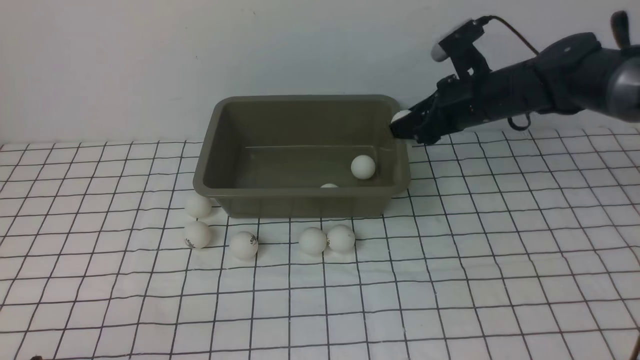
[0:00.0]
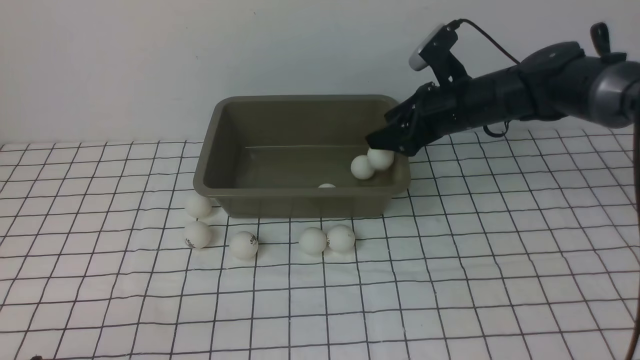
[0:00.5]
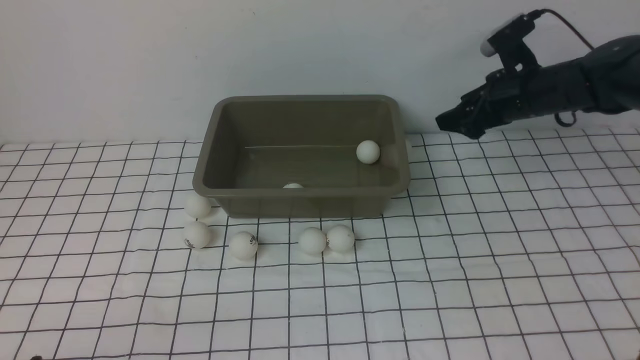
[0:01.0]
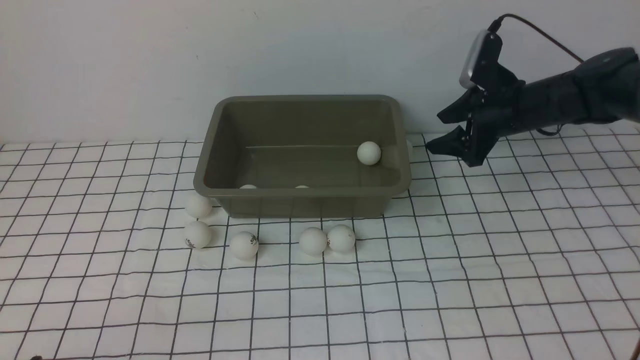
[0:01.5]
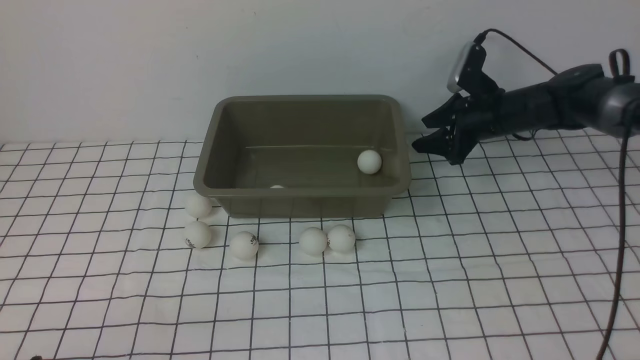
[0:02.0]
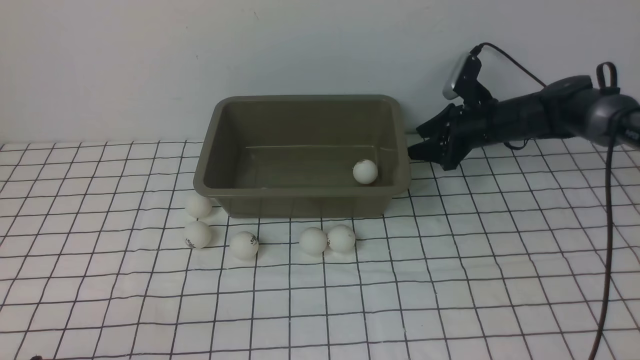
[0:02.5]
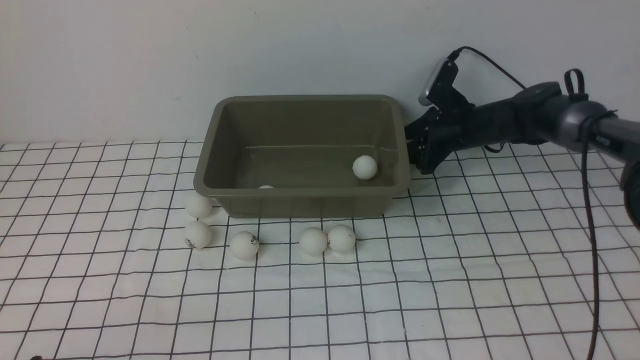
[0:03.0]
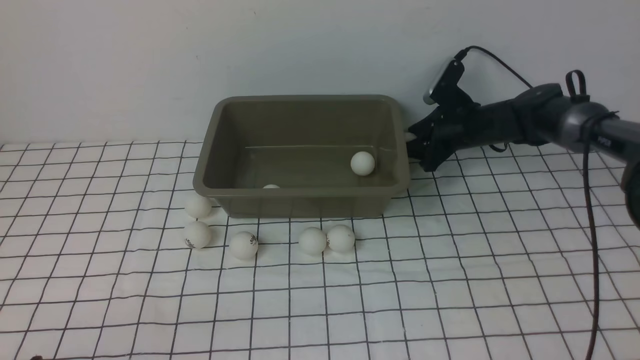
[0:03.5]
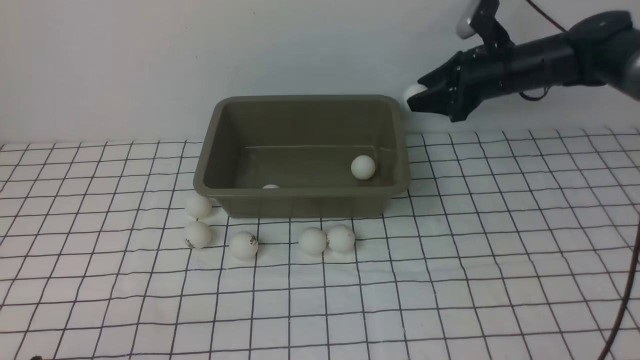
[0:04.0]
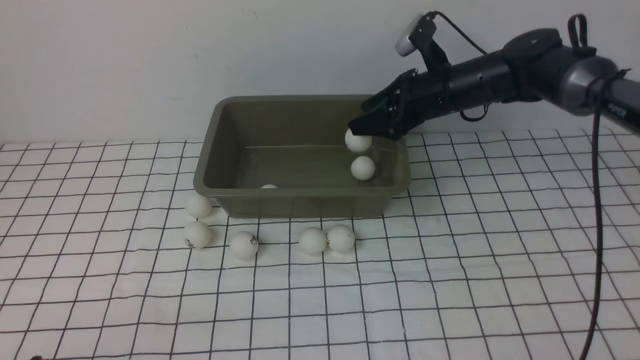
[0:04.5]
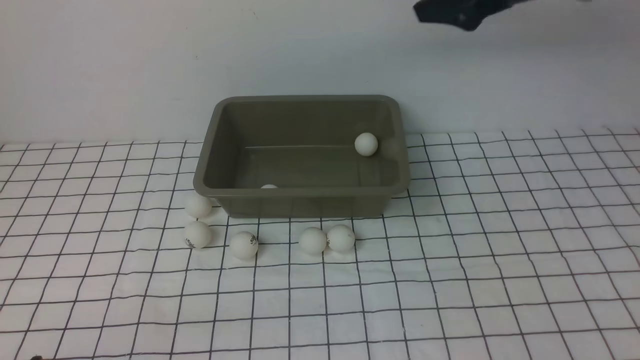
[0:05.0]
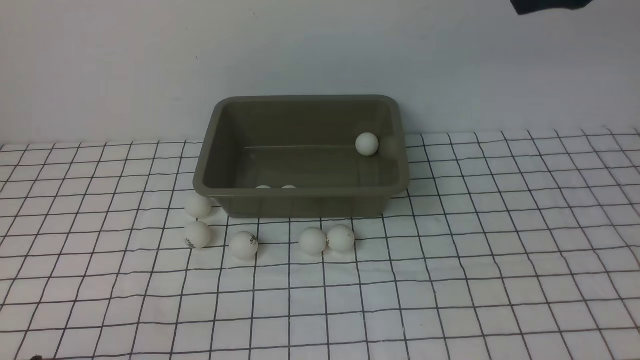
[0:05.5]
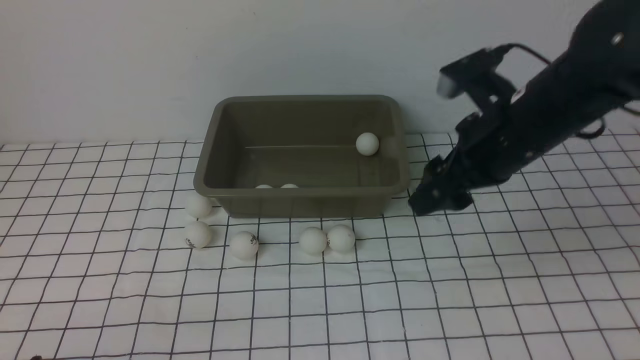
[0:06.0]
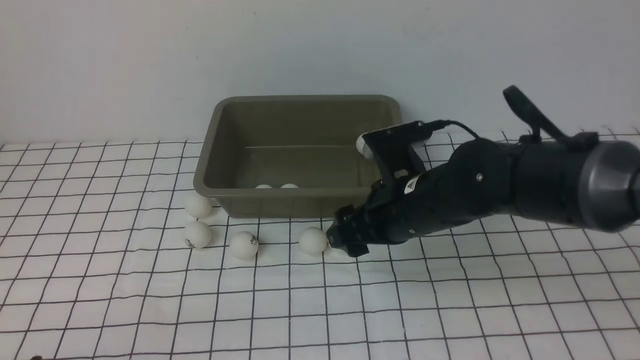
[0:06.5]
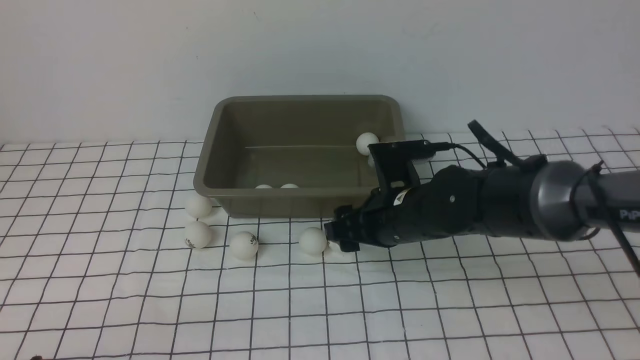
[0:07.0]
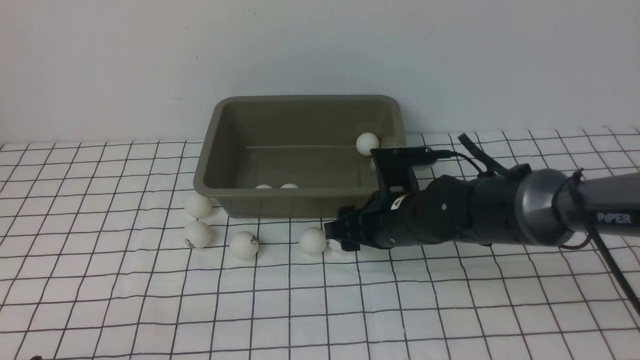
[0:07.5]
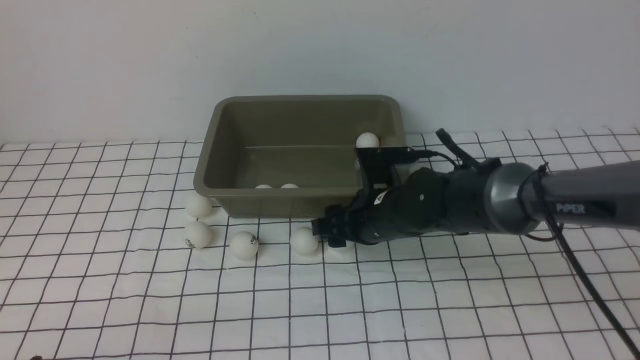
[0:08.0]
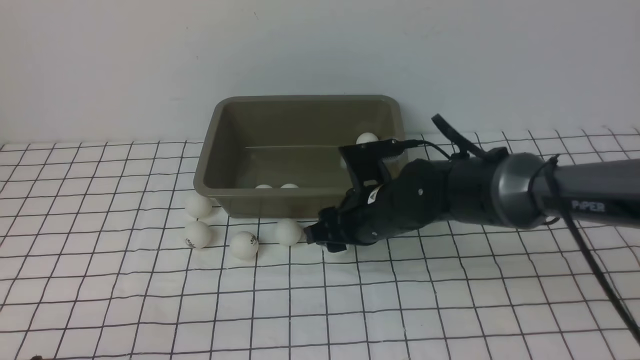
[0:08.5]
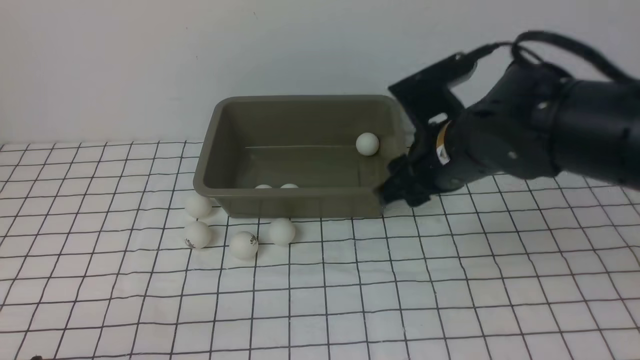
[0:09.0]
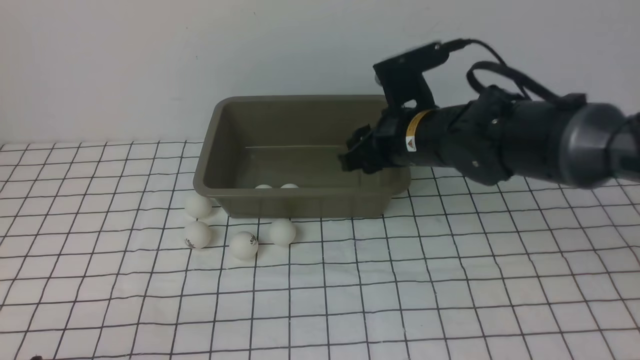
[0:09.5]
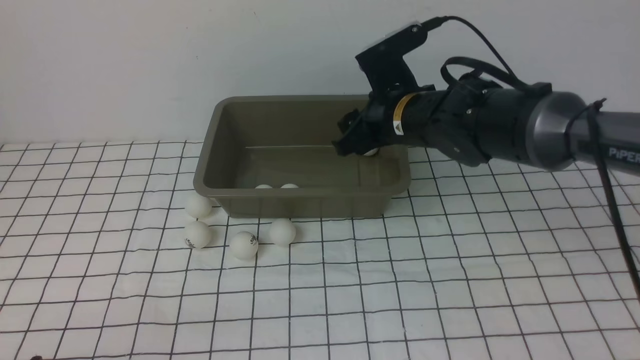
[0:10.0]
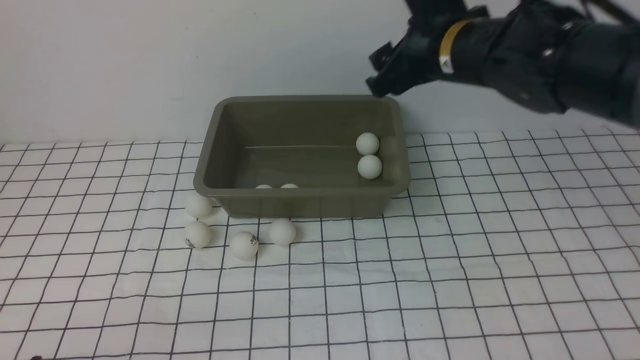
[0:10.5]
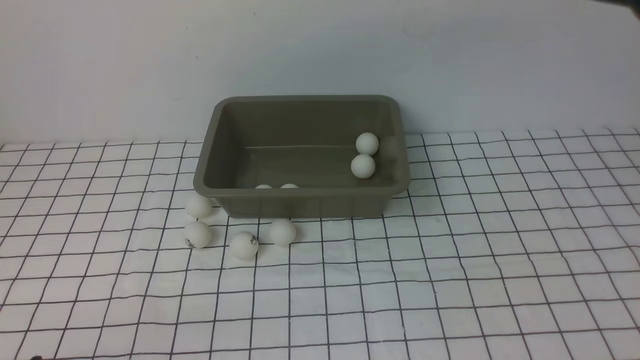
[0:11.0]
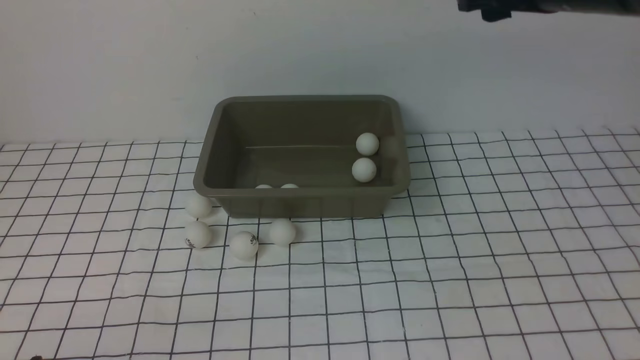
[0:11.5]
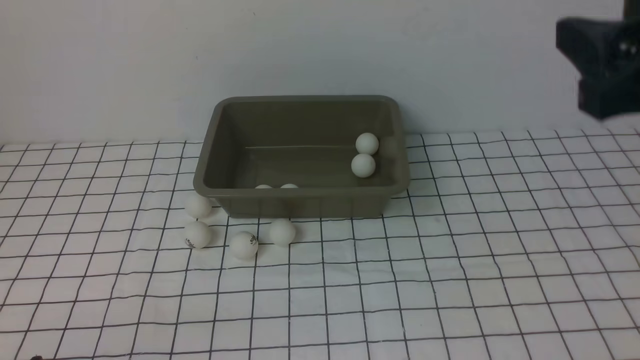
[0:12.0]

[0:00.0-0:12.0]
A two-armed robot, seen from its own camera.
Step, 0:00.0 to 0:00.5: use the right arm to put the table tennis ball into the box.
Step, 0:01.0 to 0:03.5: use the right arm to clamp the table tennis ball closest to it.
Step, 0:04.0 to 0:04.5: use the right arm to put the table tennis ball into the box.
Step, 0:05.0 to 0:08.5: use the right arm to clamp the table tennis ball closest to it.
Step, 0:09.0 to 0:10.0: use the right arm to put the table tennis ball into the box.
0:00.0 to 0:02.0: The right gripper moves downward, forward and to the right, some 10 cm, and opens its fingers.
0:02.0 to 0:04.0: The right gripper heads upward, covering about 5 cm, and closes its fingers.
0:04.0 to 0:06.0: The right gripper travels backward by roughly 15 cm, travels upward and back again, roughly 20 cm each way, and opens its fingers.
0:06.0 to 0:08.0: The right gripper heads downward and to the left, covering approximately 20 cm, and closes.
0:08.0 to 0:10.0: The right gripper moves upward and forward, some 10 cm, and closes, then reopens.
0:10.0 to 0:12.0: The right gripper goes roughly 30 cm backward, to the right and upward.

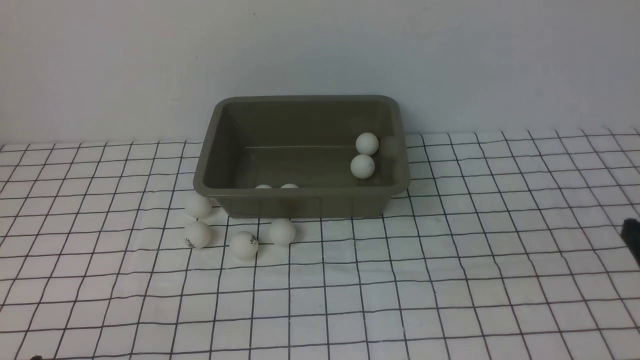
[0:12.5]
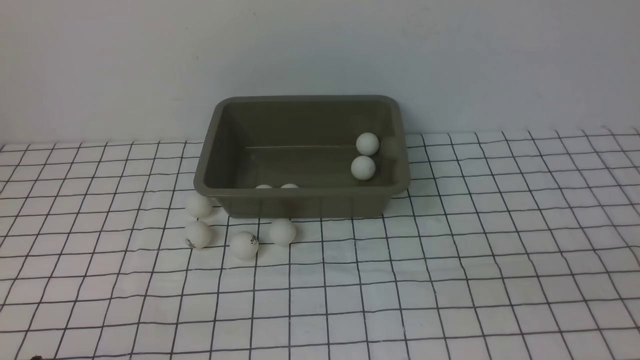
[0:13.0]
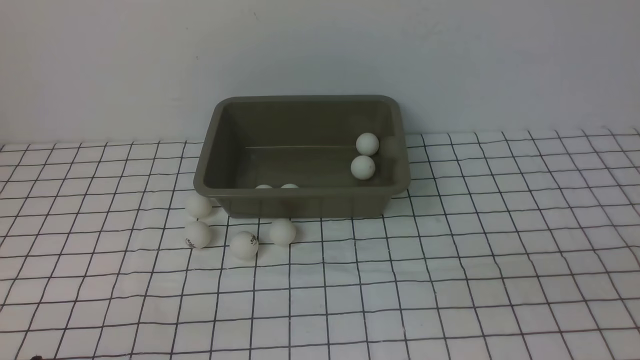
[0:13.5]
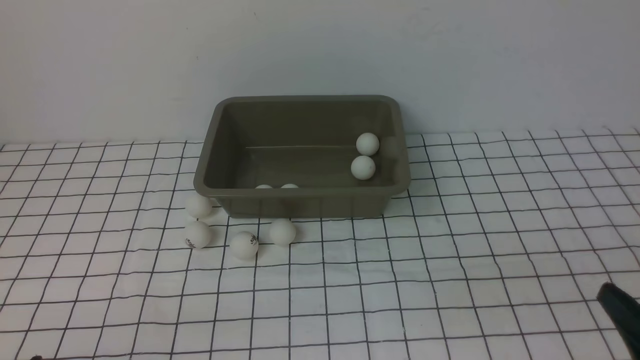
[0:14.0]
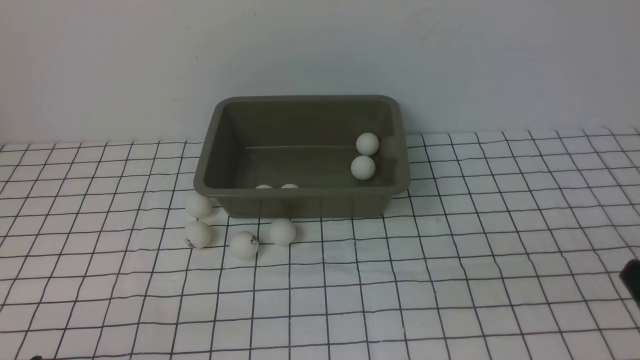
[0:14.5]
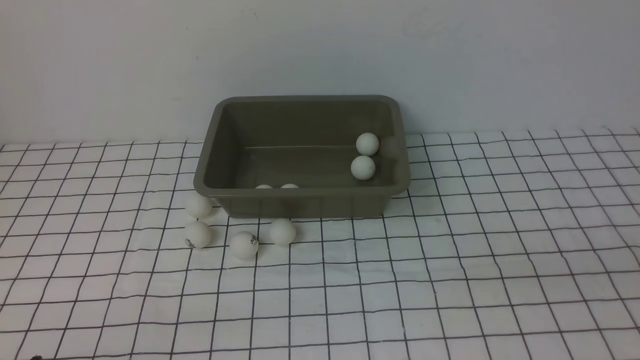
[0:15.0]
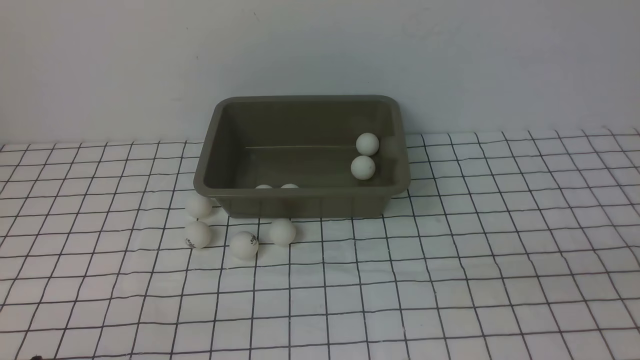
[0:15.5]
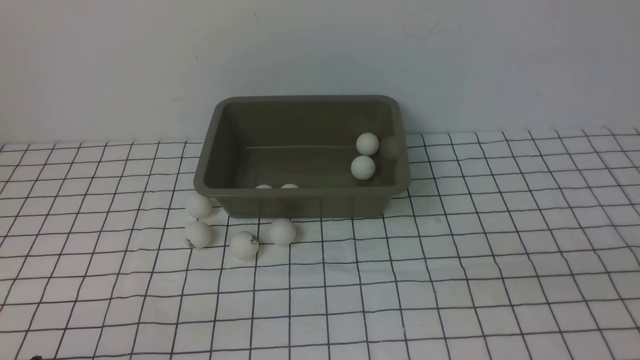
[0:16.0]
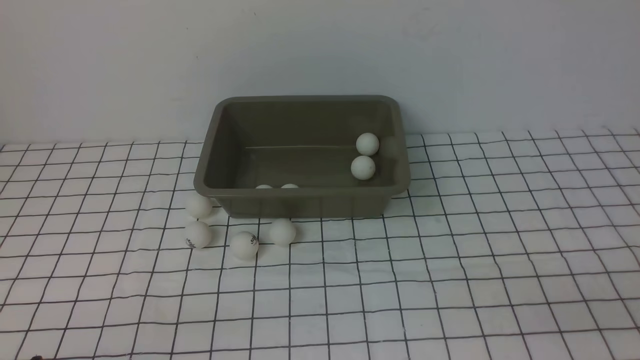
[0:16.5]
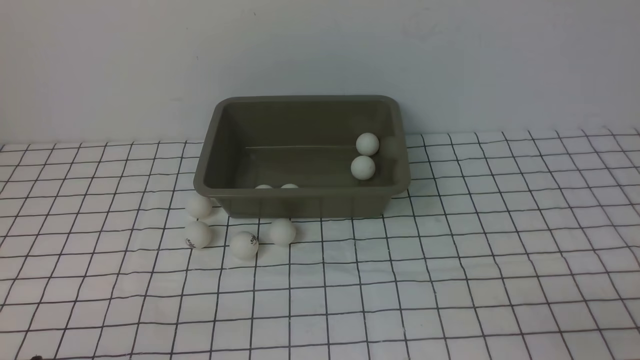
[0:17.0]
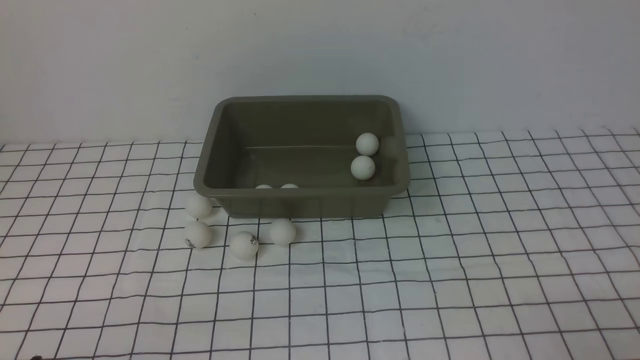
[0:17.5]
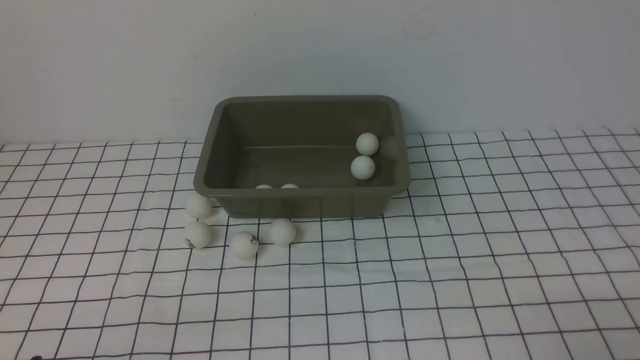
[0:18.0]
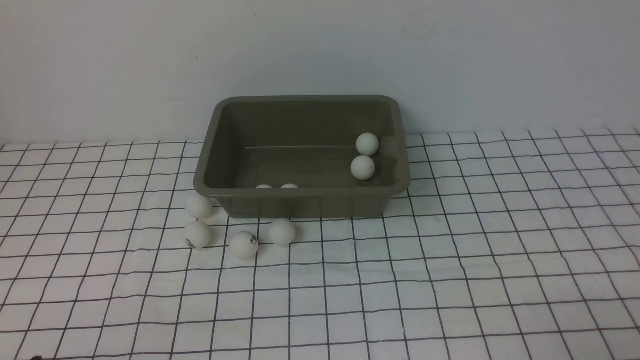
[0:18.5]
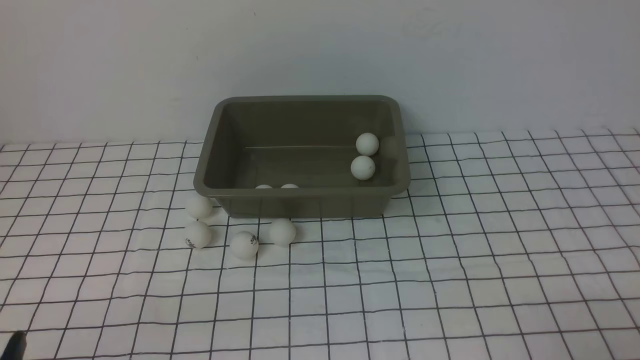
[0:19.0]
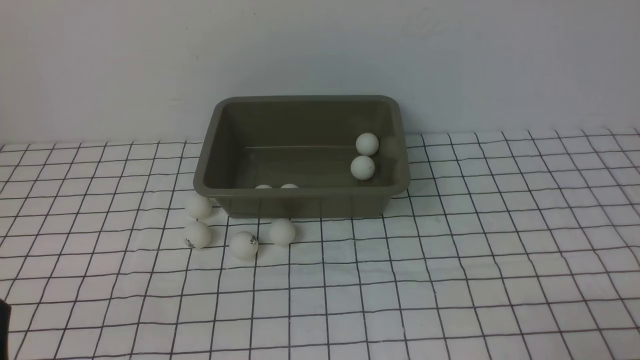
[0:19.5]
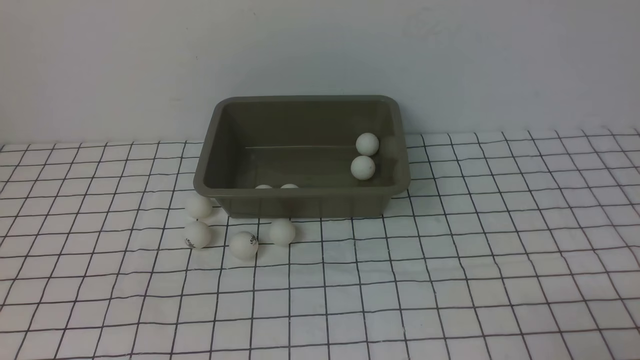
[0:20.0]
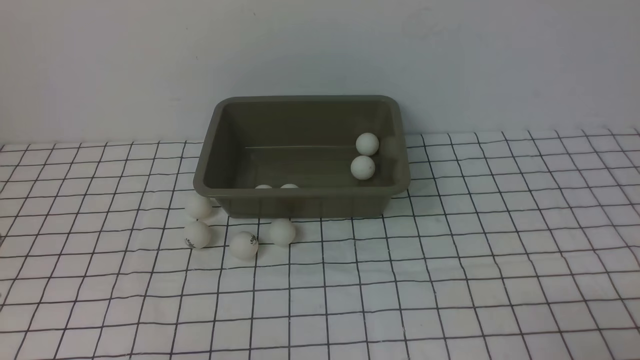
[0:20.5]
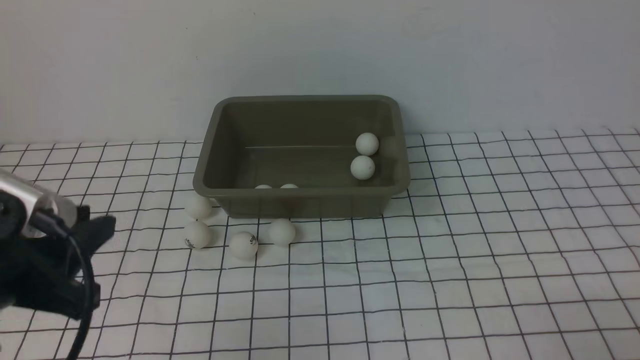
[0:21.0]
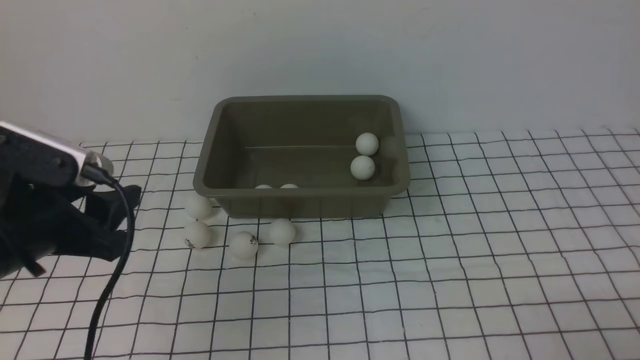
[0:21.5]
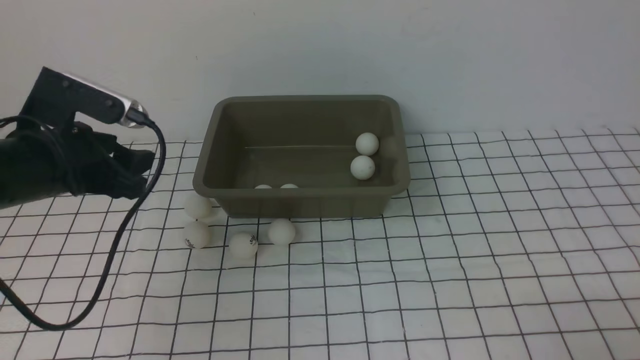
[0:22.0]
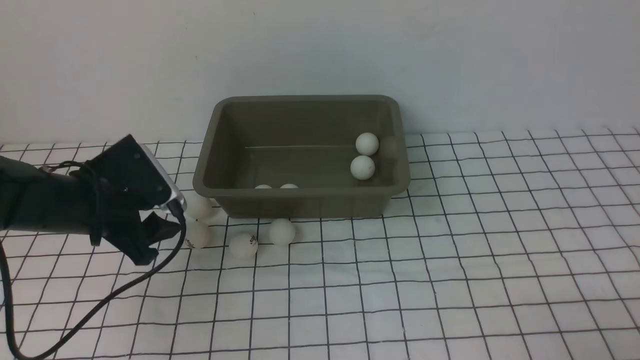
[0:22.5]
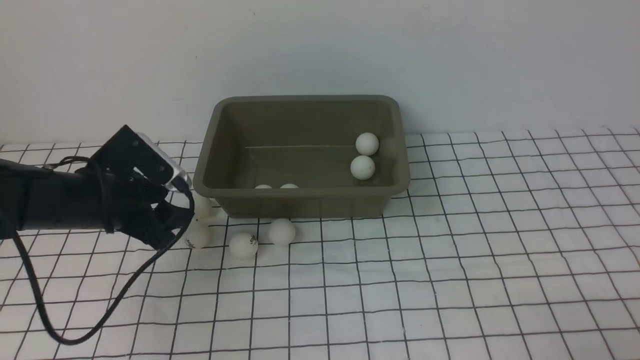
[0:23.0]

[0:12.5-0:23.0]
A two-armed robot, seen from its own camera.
0:19.0 to 0:21.0: The left gripper moves upward and forward, some 15 cm, and closes its fingers.
0:21.0 to 0:23.0: The left gripper travels forward and downward by some 20 cm, and opens its fingers.
